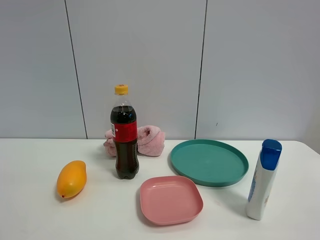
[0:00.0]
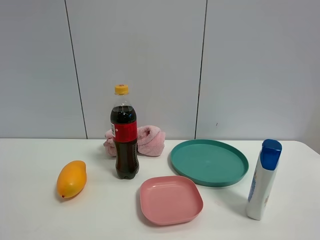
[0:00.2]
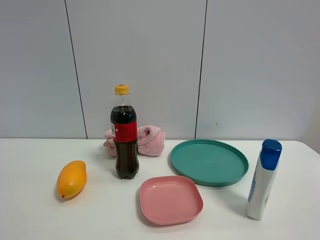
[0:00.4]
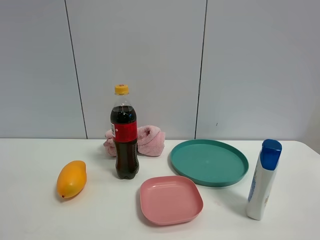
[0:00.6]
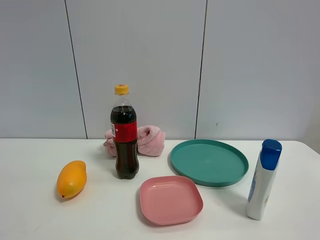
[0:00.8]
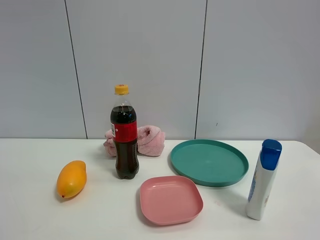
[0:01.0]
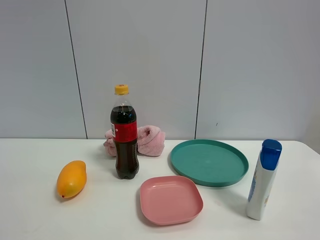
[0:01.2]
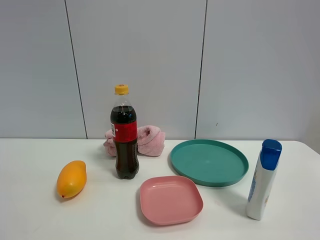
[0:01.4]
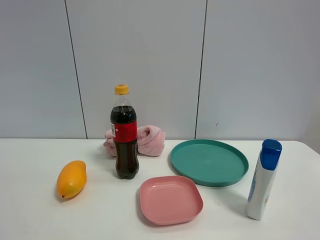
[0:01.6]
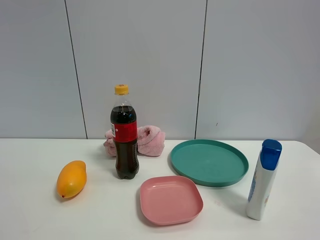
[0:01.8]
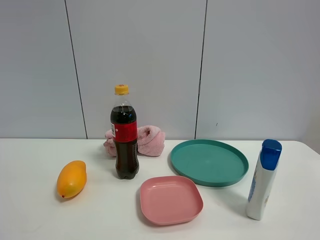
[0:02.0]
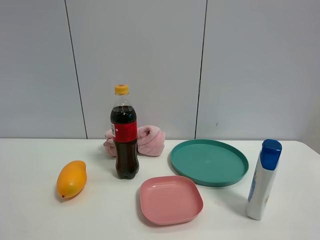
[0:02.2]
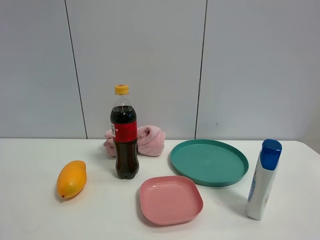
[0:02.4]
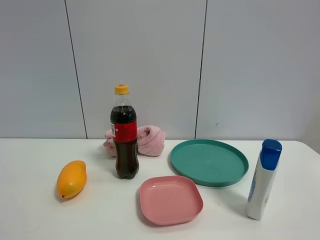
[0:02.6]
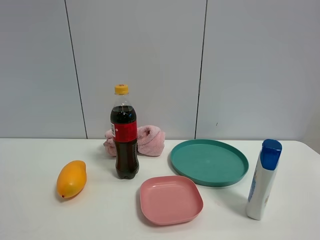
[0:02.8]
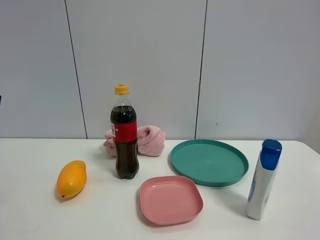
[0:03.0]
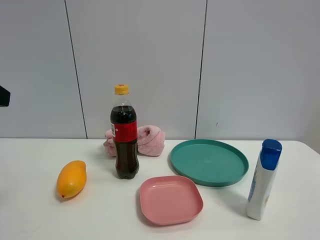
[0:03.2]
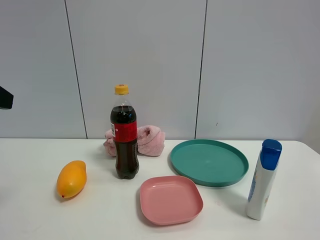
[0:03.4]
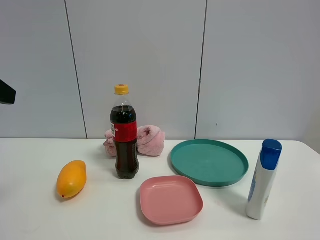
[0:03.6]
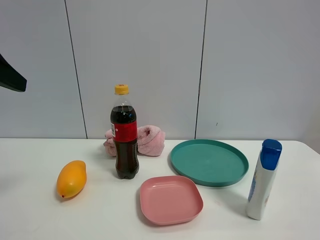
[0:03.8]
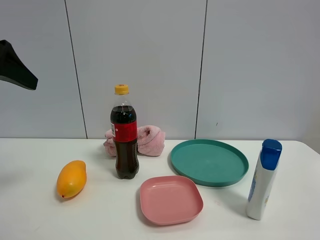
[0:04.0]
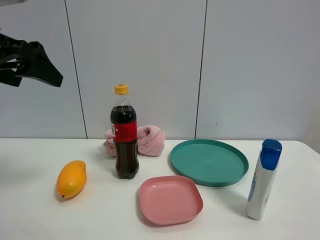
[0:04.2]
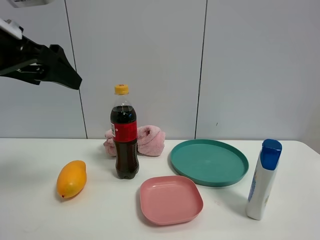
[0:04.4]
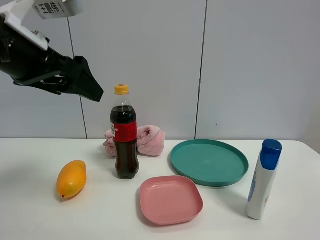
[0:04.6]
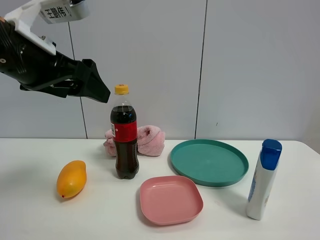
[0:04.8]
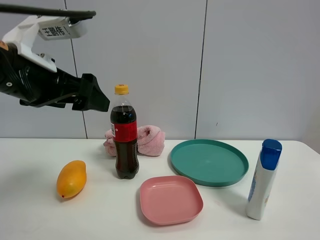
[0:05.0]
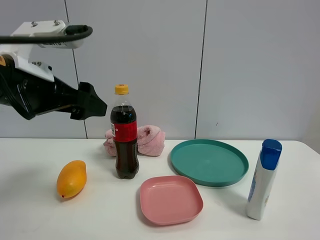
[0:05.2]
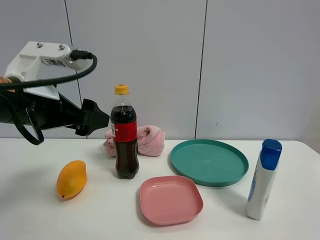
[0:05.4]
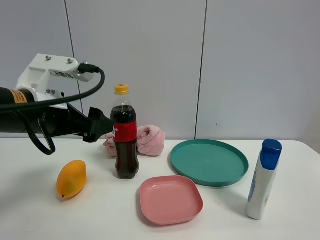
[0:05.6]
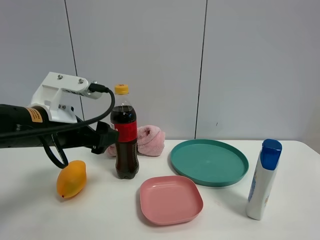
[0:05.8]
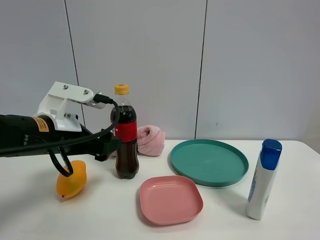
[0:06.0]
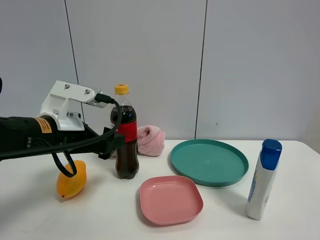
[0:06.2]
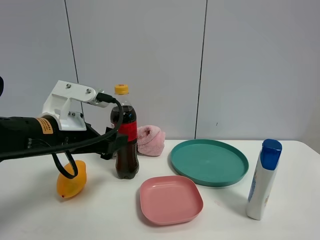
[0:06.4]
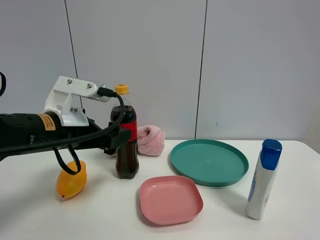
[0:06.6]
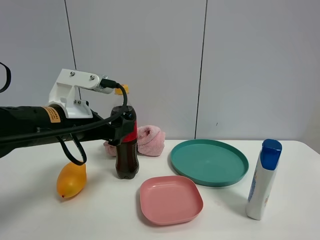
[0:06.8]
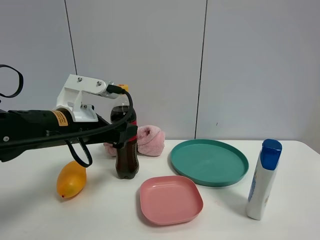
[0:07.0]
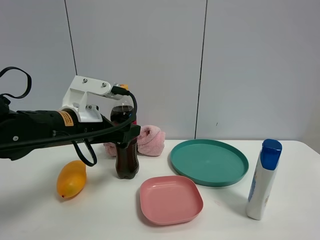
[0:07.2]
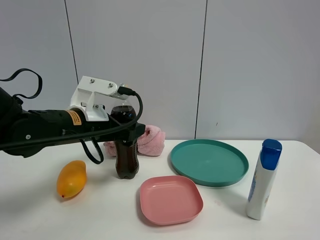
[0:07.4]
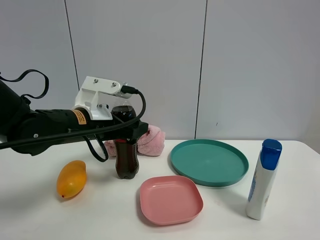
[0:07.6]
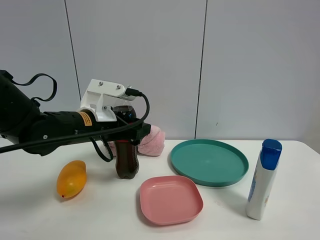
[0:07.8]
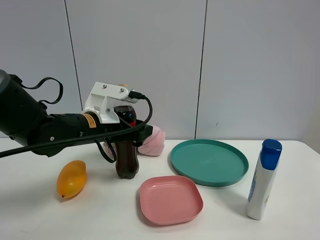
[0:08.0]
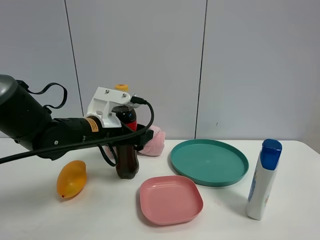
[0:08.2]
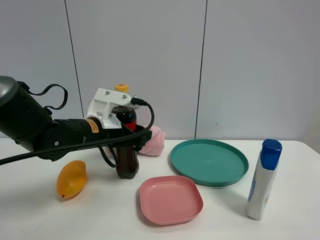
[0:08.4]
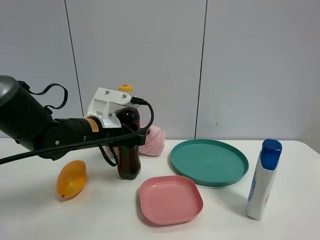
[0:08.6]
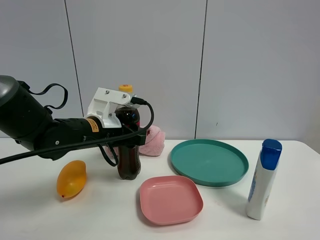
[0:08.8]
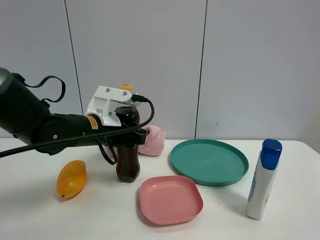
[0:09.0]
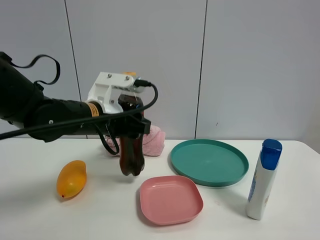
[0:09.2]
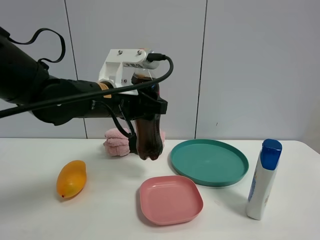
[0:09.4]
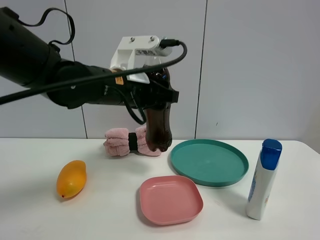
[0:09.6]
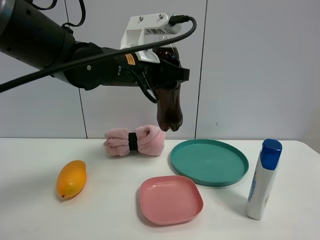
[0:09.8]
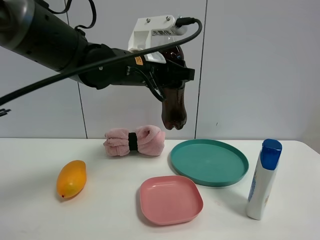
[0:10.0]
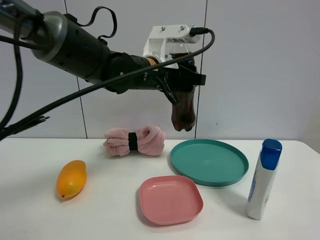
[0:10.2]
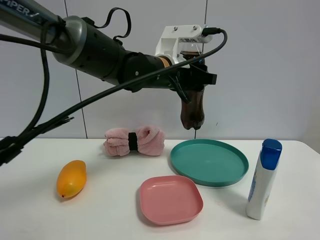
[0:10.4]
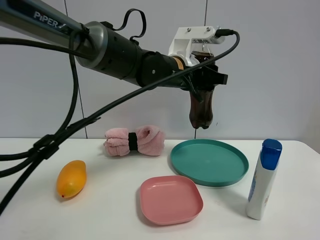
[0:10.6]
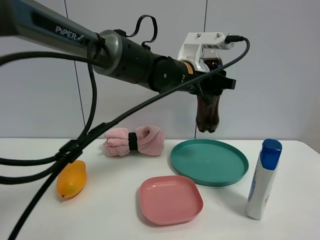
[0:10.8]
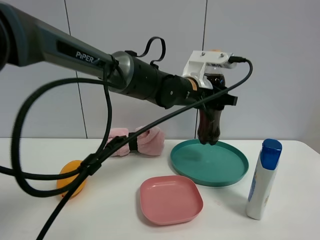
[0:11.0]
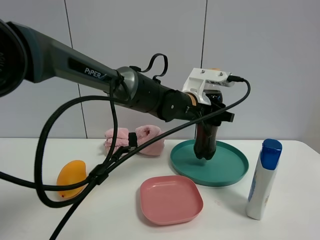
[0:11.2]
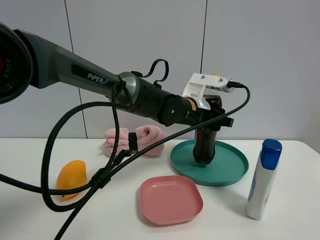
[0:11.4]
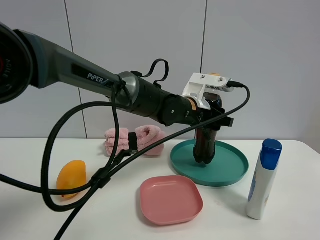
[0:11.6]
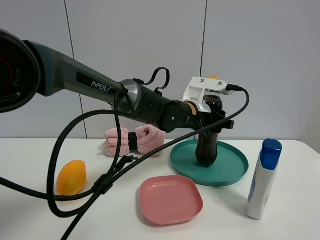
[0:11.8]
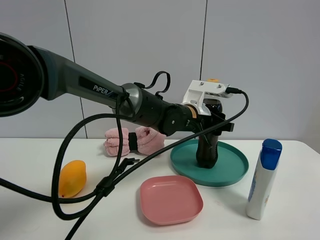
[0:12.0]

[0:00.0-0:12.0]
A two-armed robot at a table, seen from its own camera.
Task of the whole recording: the gripper move the object.
Step, 0:00.0 to 0:08.6: Grasp the coke with the left gripper.
0:00.0 to 0:01.6: Both grippers stay put.
0:03.0 to 0:04.4: The left gripper is displaced forward and to the right by about 15 cm.
0:04.4 to 0:06.0: The left gripper heads downward, covering roughly 15 cm.
0:06.0 to 0:07.6: The left gripper travels forward by roughly 5 cm.
0:07.6 to 0:09.0: The left gripper closes its fingers.
0:09.0 to 0:10.4: The left gripper travels to the right and upward by some 15 cm.
0:10.4 to 0:12.0: The left gripper goes about 10 cm downward and to the right.

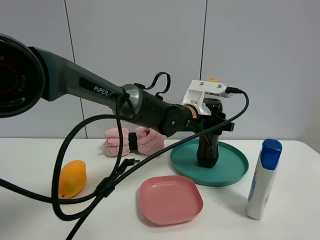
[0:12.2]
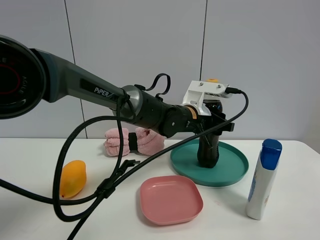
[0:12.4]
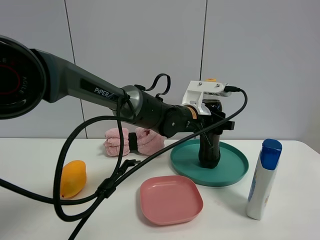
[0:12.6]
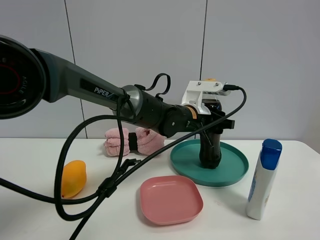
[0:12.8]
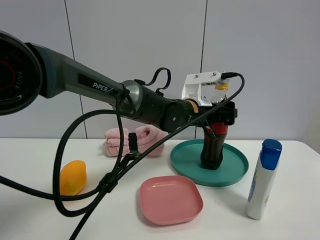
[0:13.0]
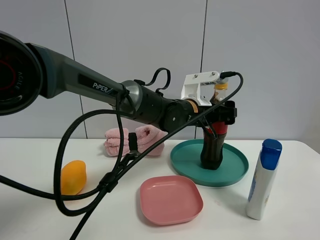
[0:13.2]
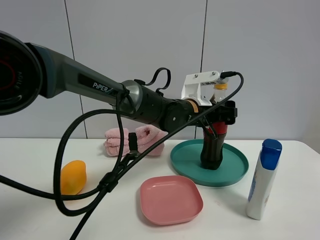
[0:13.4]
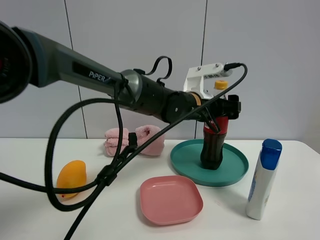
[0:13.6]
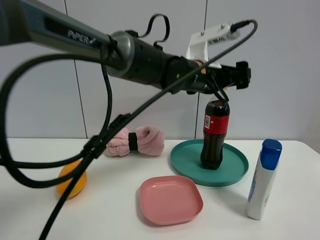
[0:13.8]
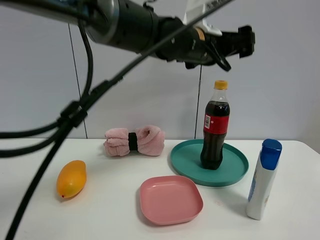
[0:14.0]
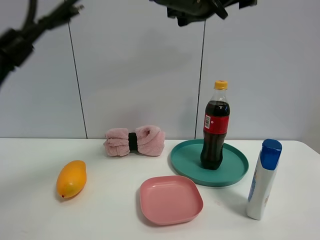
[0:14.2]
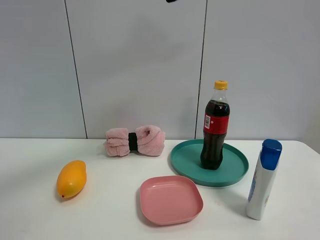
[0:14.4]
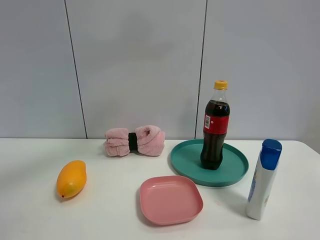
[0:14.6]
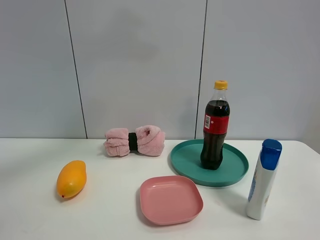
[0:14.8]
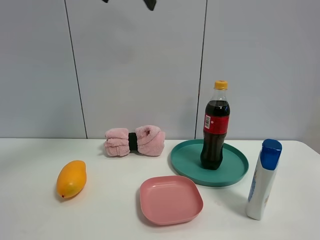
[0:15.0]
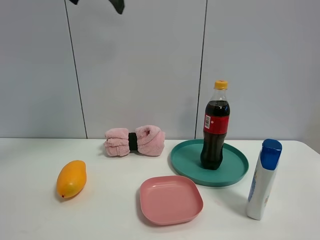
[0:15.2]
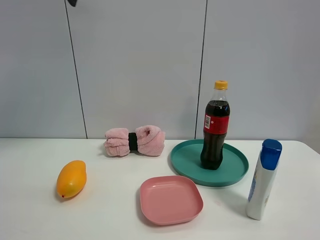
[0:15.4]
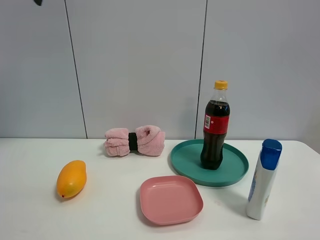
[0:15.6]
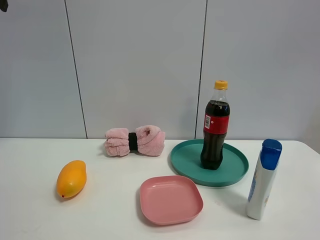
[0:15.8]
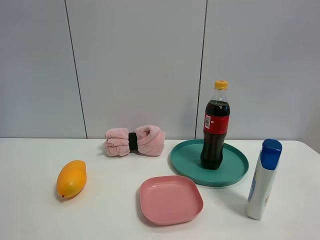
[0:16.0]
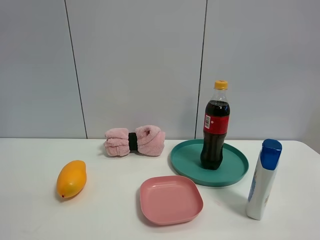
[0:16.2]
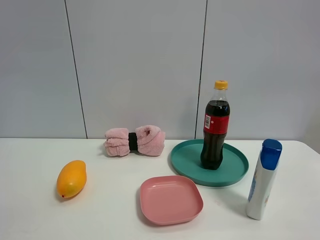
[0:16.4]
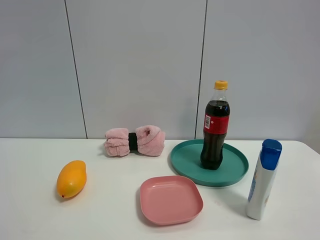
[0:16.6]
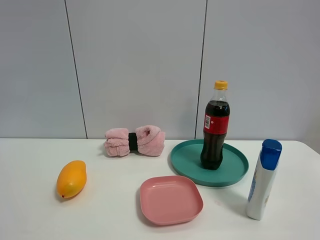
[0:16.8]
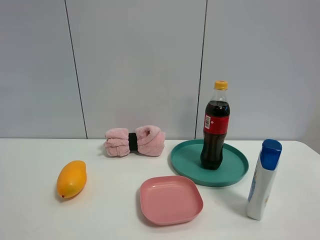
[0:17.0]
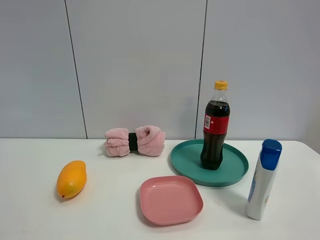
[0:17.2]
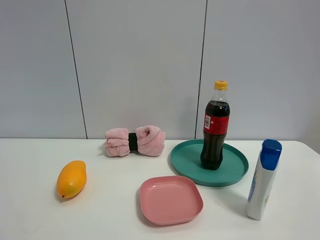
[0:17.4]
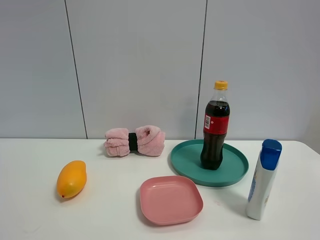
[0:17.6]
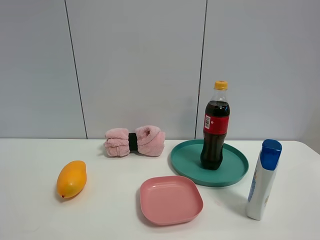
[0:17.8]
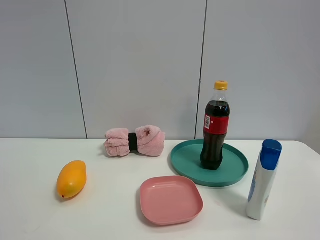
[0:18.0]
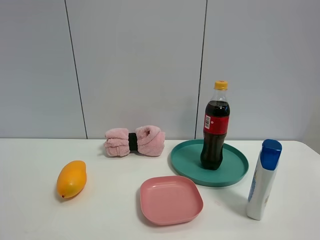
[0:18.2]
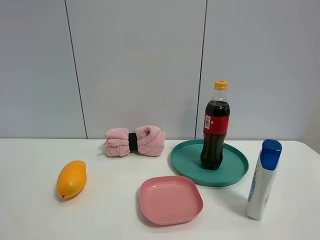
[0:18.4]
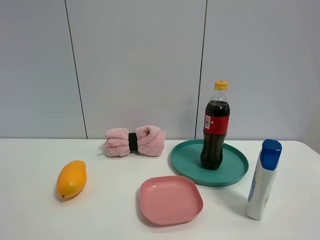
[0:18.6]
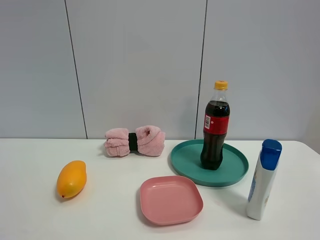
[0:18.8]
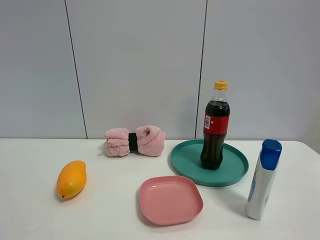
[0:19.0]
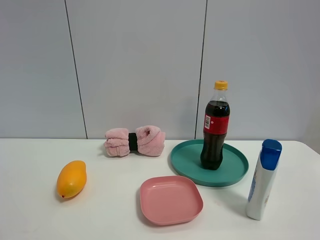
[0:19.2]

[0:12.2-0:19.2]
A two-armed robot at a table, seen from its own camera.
Task of the whole recording: the gripper move the object.
0:12.2 to 0:13.6: The left gripper opens up.
0:13.6 to 0:15.0: The left gripper is displaced upward and to the left by about 30 cm.
0:15.0 to 0:16.4: The left gripper is displaced to the left by approximately 25 cm.
0:17.8 to 0:19.2: Both grippers stay put.

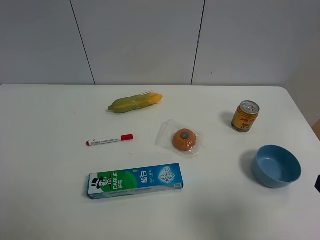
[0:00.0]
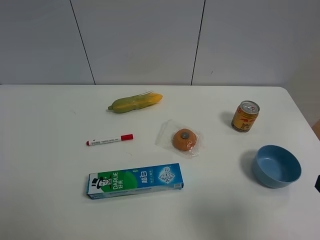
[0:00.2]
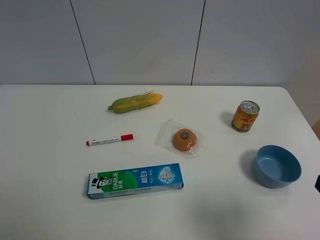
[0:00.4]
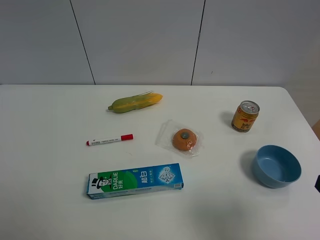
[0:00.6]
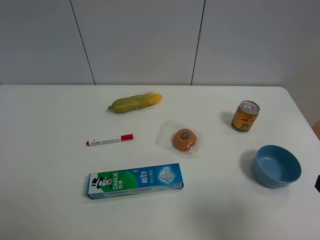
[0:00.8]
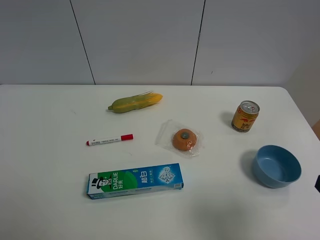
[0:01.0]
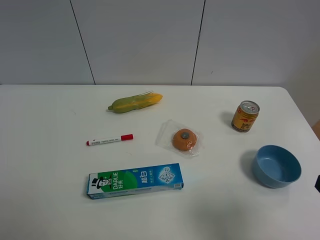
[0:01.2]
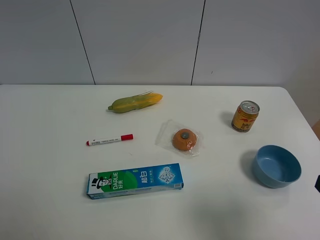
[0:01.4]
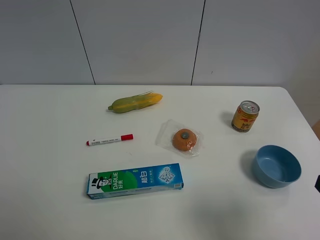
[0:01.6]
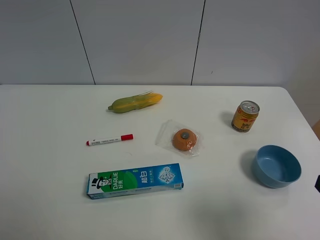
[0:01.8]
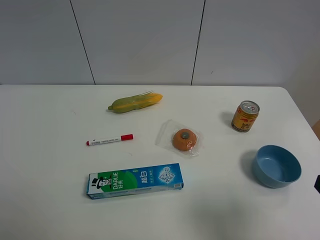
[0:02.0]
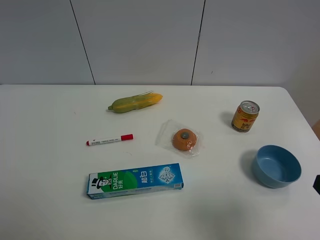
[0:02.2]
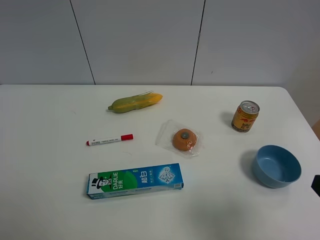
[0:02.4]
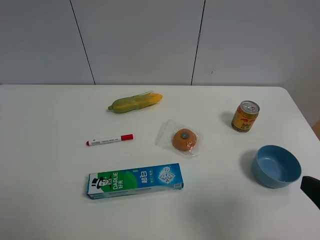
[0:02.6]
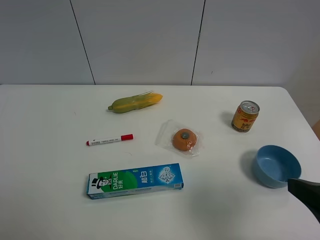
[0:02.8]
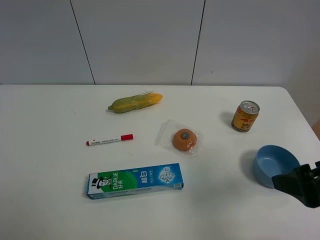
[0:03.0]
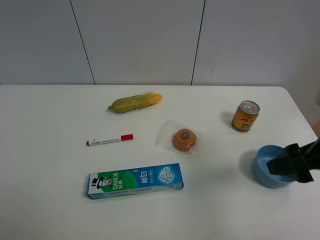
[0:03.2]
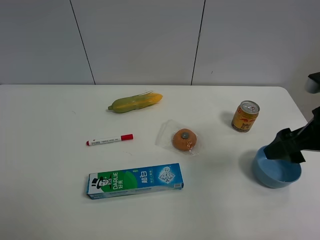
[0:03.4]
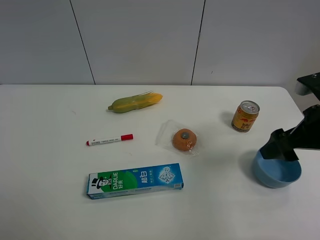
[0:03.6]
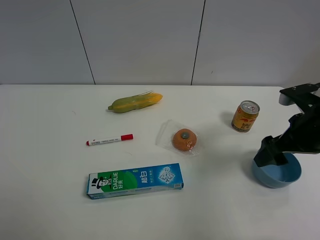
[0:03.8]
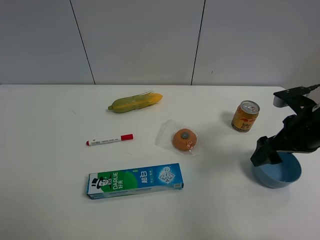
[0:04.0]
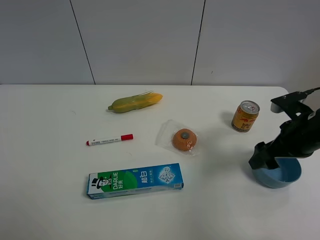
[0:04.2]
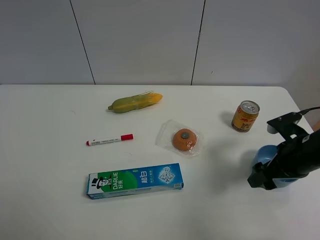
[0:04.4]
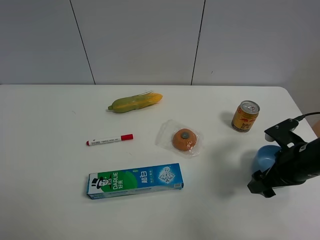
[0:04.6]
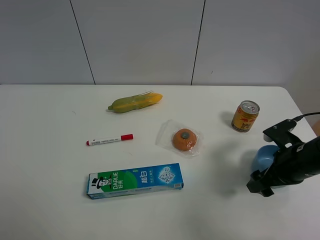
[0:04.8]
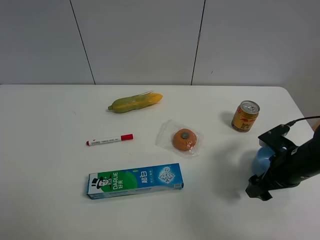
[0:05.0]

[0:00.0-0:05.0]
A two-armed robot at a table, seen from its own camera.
Task of the whole recording: the gripper move the object.
0:00.0 to 0:01.6: The two grippers keep their place.
0:01.6 to 0:03.4: The right gripper moves forward, about 20 cm.
0:03.4 to 0:05.0: The right gripper is displaced downward by about 15 cm.
